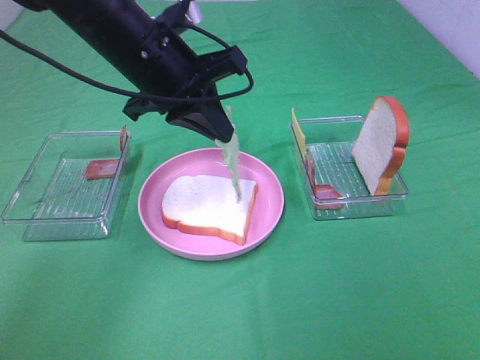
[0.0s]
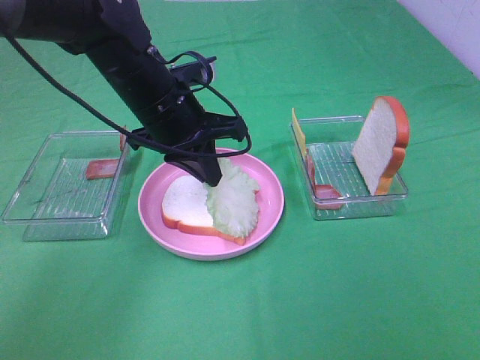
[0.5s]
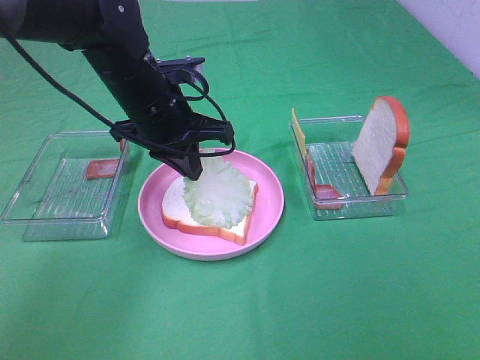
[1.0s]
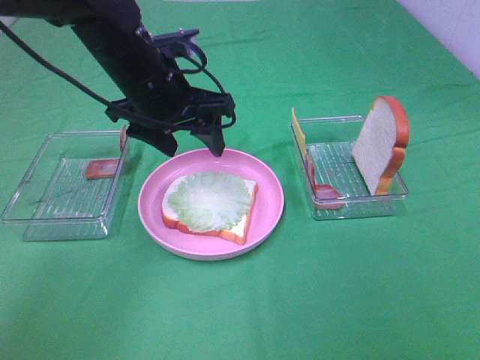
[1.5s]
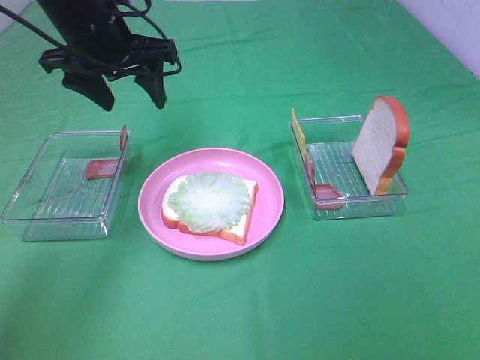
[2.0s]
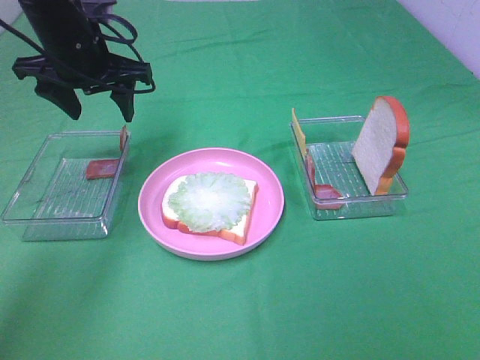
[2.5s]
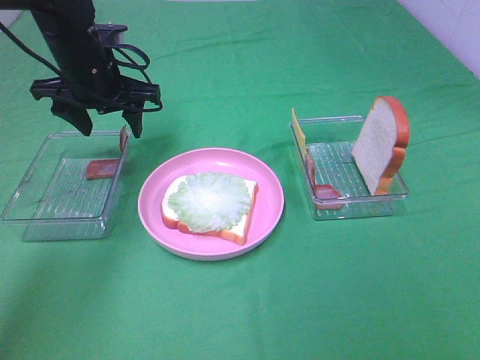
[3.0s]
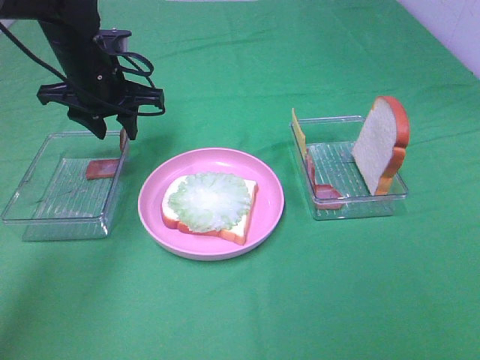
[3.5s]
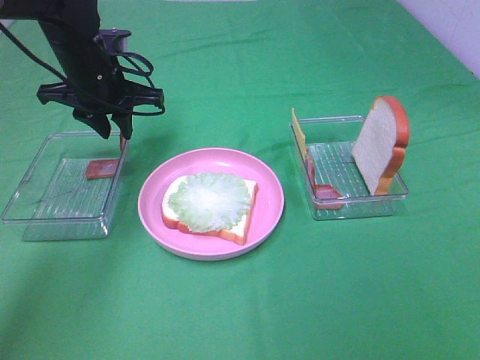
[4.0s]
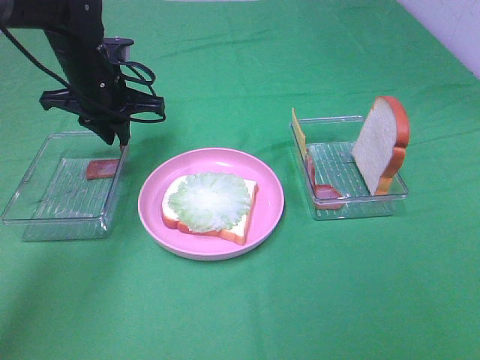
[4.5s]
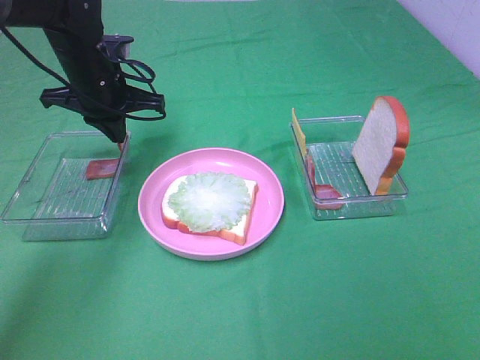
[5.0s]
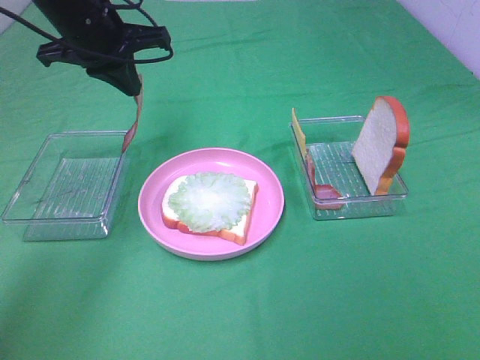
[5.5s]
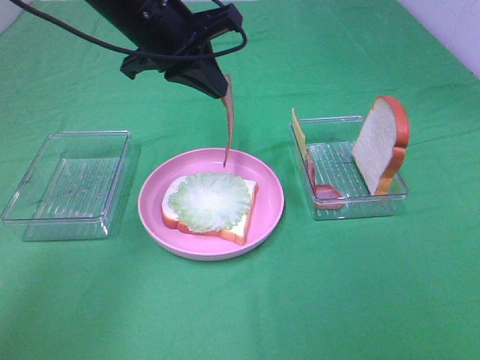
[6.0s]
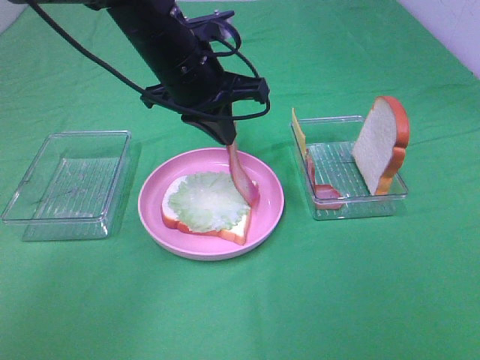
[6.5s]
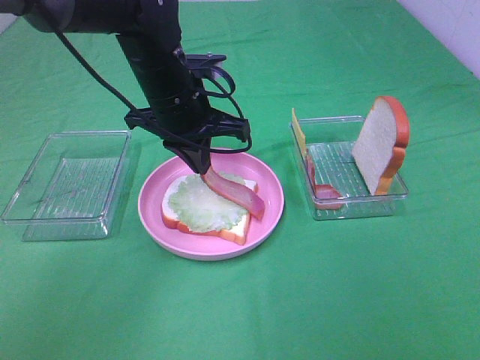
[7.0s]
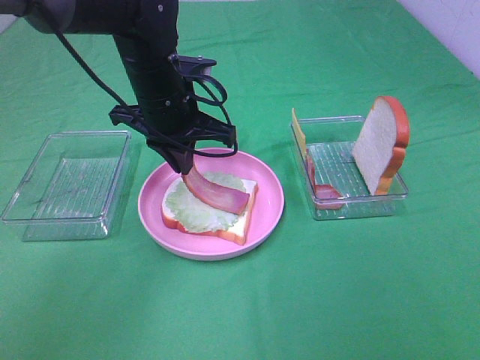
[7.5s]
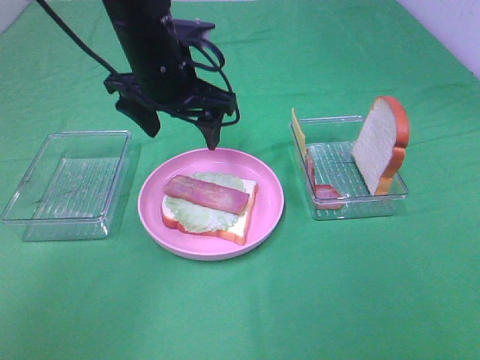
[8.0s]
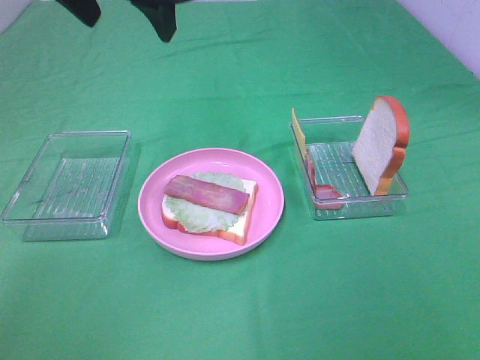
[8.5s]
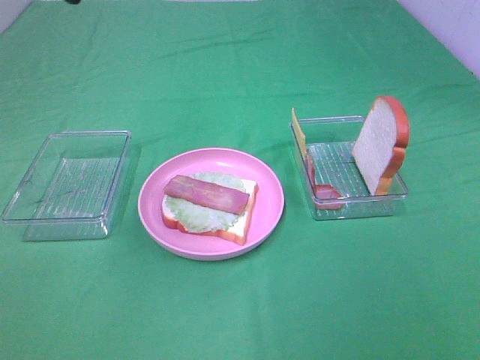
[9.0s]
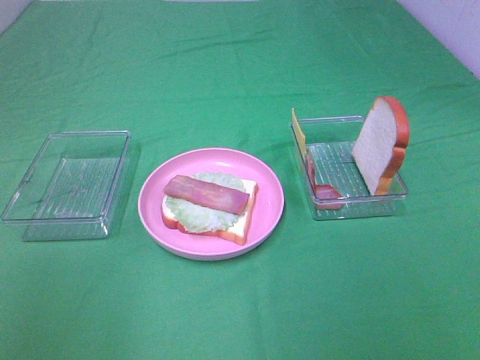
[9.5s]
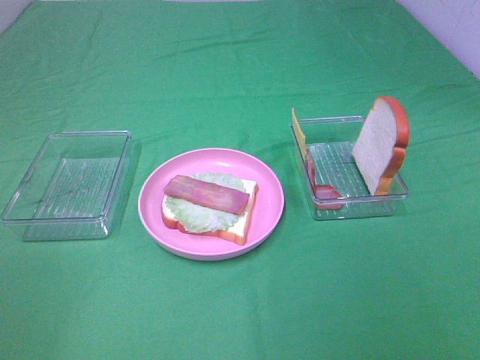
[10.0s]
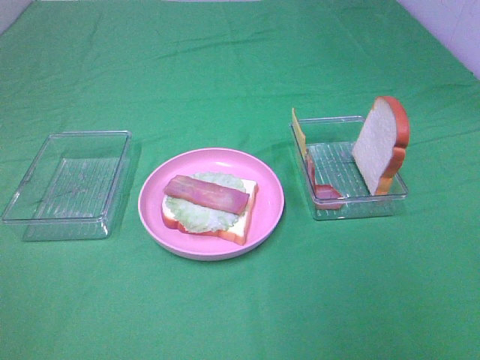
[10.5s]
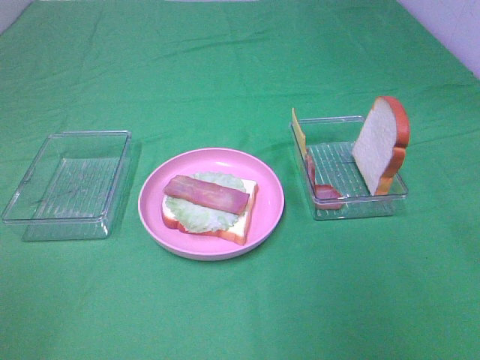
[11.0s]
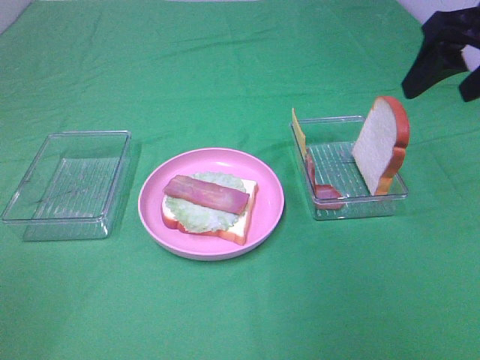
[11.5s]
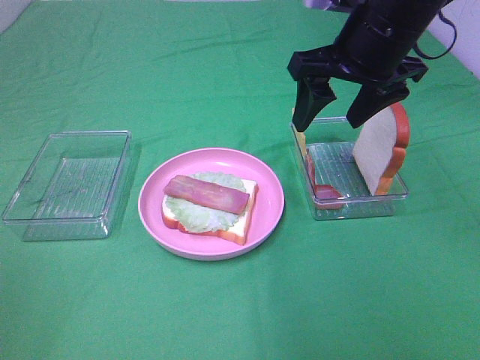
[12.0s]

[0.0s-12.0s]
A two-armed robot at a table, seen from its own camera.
Task of the whole recording: Make sandwiches.
Step, 1.5s to 5.0s: Left hand:grab the bacon.
Step, 5.5s to 7.5s: Left hand:place bacon on lettuce slice.
0.0s to 2.0s: The left gripper is displaced to the left and forward by roughly 10 cm, and opens up.
2.0s to 4.0s: The left gripper shifts some 5 cm downward, and closes up.
4.0s to 6.0s: The left gripper shifts about 10 cm to the right and upward, and closes up.
6.0s to 8.0s: The left gripper opens up.
8.0s to 10.0s: The left gripper moves backward and to the left, roughly 40 cm.
10.0s to 12.0s: The left gripper shifts roughly 5 cm downward. The right gripper is displaced forward and to the left by some 40 cm.

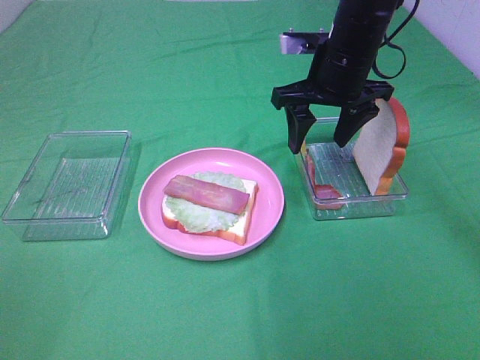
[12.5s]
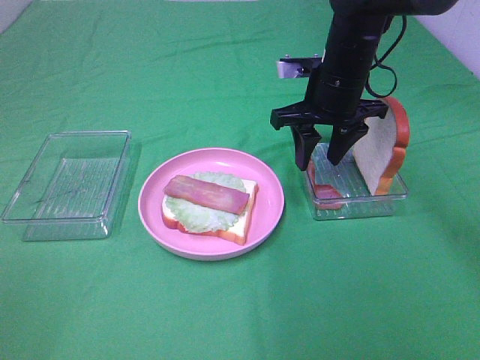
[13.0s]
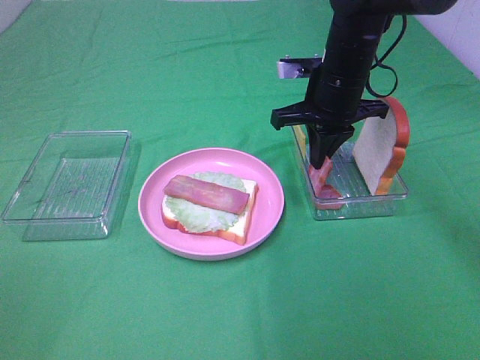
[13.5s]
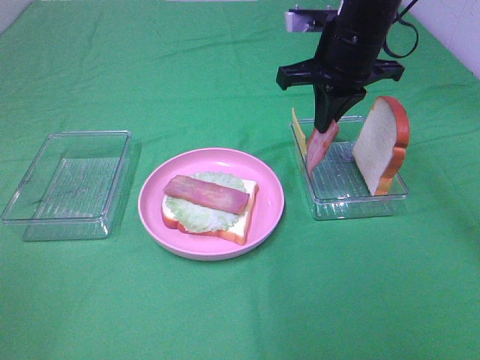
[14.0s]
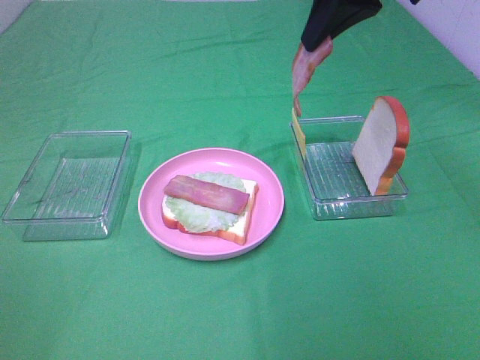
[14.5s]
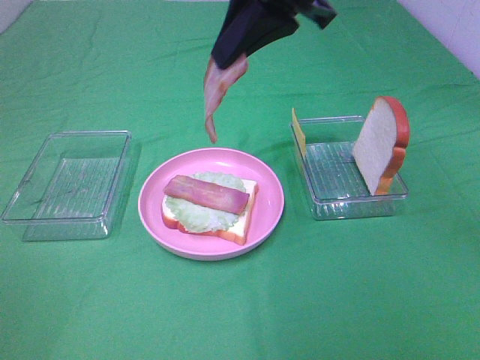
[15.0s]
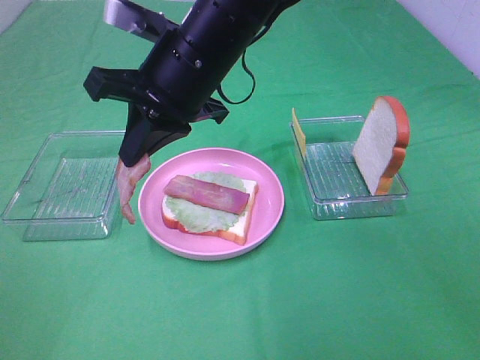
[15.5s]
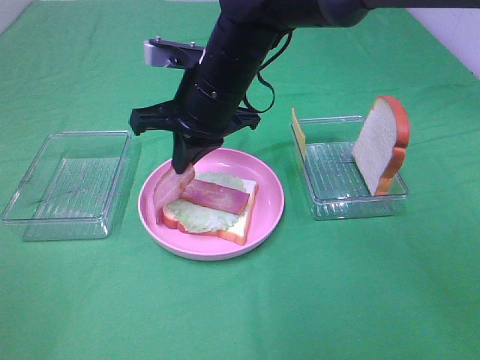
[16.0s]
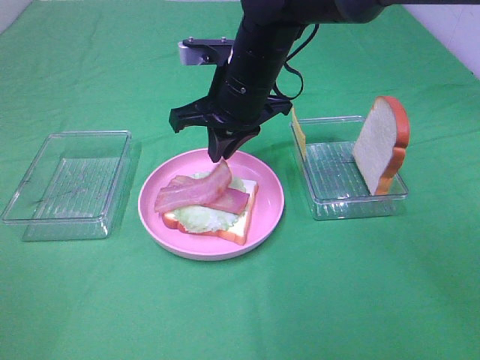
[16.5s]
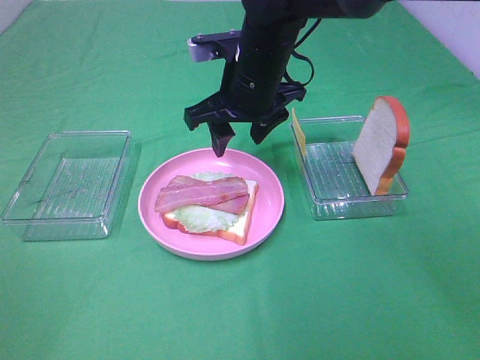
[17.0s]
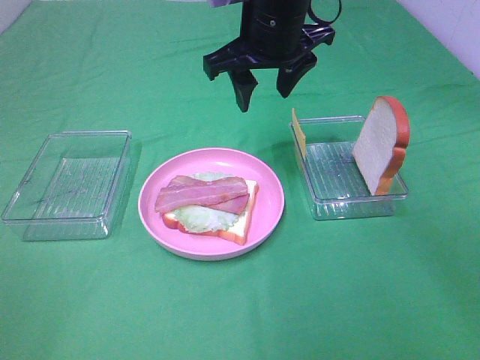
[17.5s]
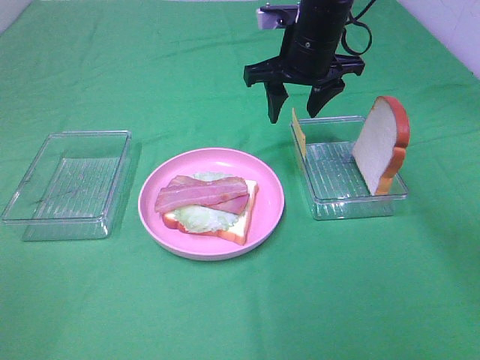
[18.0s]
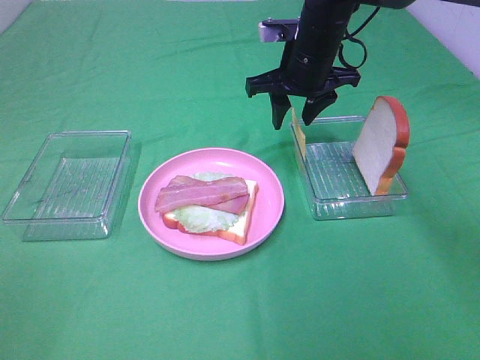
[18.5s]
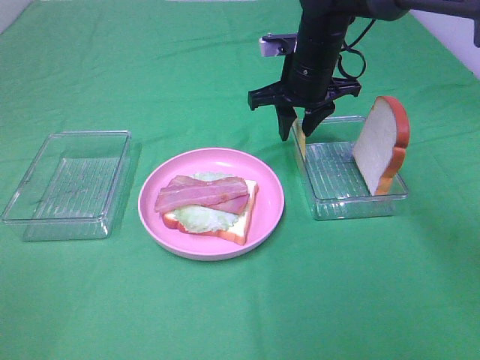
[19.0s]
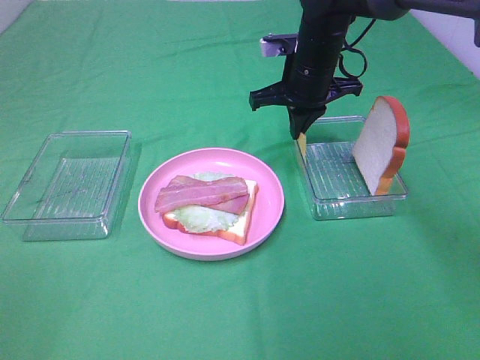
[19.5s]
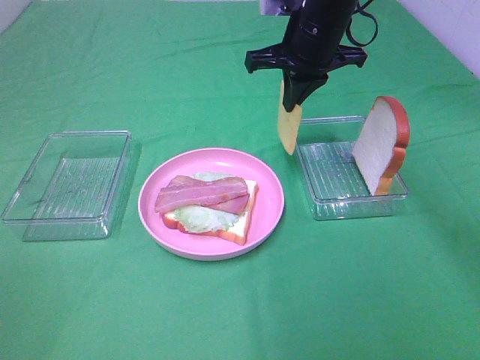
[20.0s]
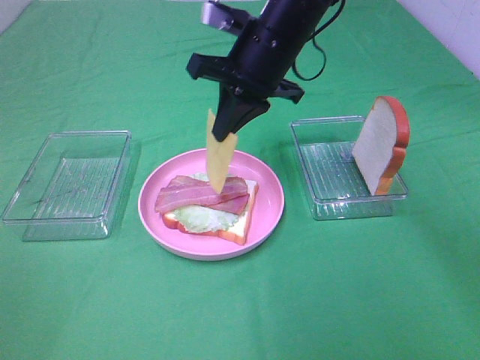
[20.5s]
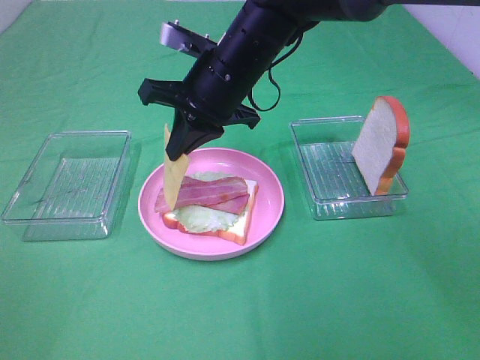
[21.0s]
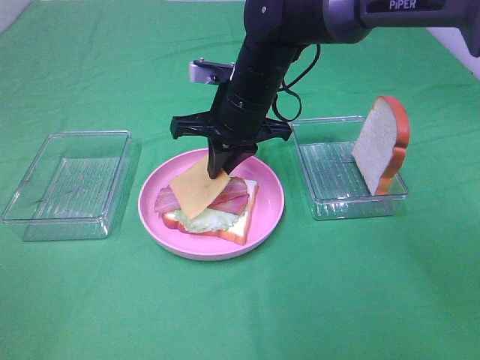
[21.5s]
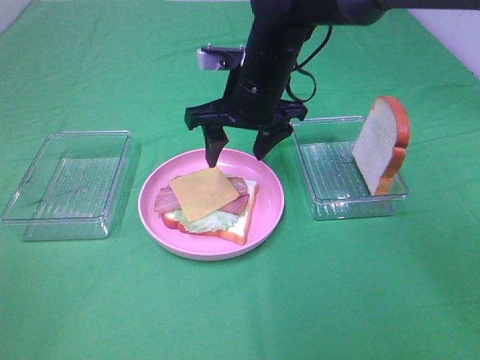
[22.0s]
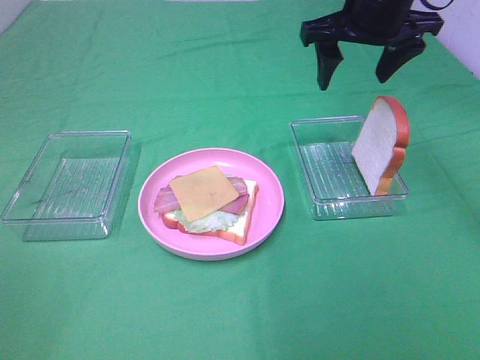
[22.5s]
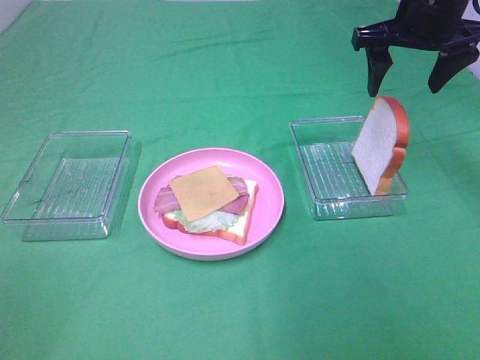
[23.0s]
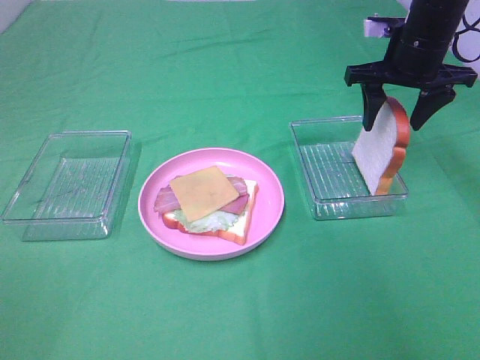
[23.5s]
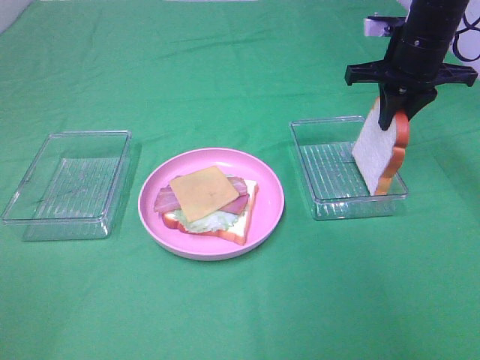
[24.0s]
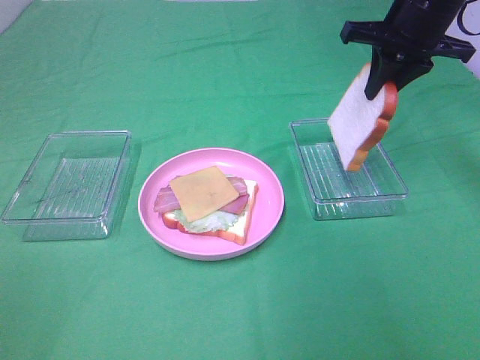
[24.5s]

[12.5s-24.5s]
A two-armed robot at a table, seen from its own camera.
Task of the whole recording: Make sandwiches.
Step, 14.0s to 16.5s: Right hand:place bacon on bacon.
Step, 17.0s to 19.5s: Right hand:grab the cheese slice.
Step, 20.0s to 21.5s: Right hand:place the cheese slice on top of the bacon.
Step, 22.0s to 24.0s: Right hand:grab the bread slice.
12.5s to 14.5s: The right gripper heads upward, covering approximately 15 cm, and closes.
14.5s to 16.5s: The right gripper is displaced downward and to the left by about 20 cm.
16.5s to 18.5s: The right gripper moves to the right and forward, about 10 cm, and opens its fingers.
18.5s to 20.5s: The right gripper goes approximately 10 cm backward and to the left, and closes up.
20.5s to 22.5s: The right gripper travels to the right and upward by approximately 15 cm, and opens.
22.5s to 24.5s: The right gripper heads to the right, covering roughly 5 cm, and closes.

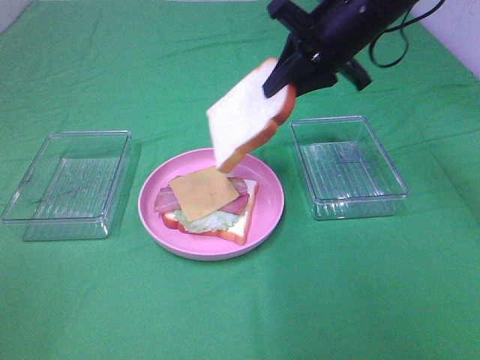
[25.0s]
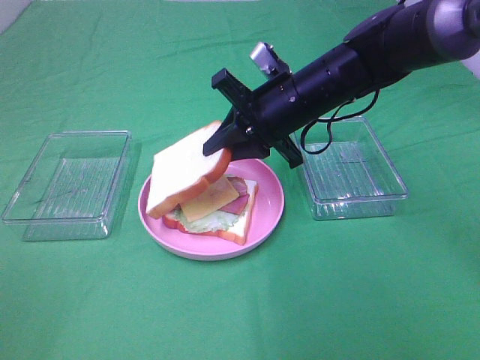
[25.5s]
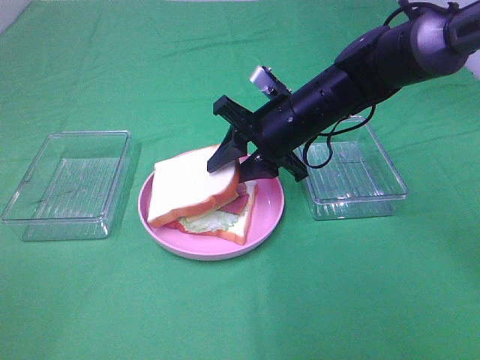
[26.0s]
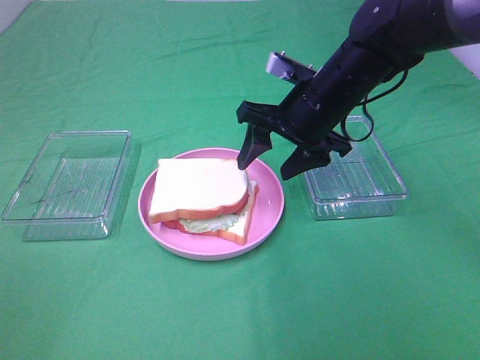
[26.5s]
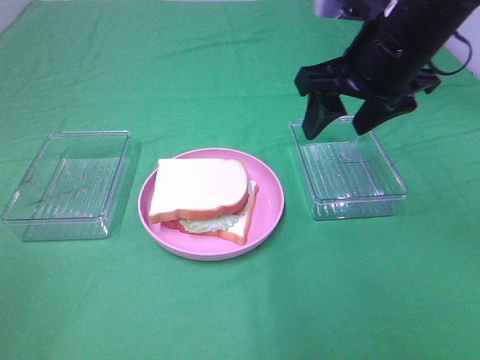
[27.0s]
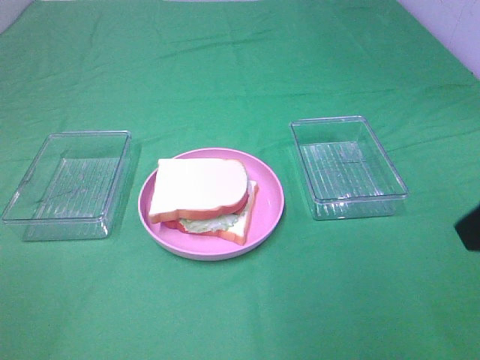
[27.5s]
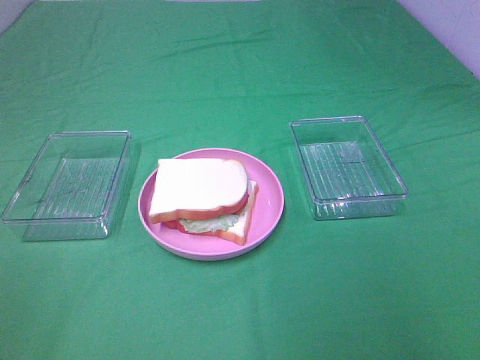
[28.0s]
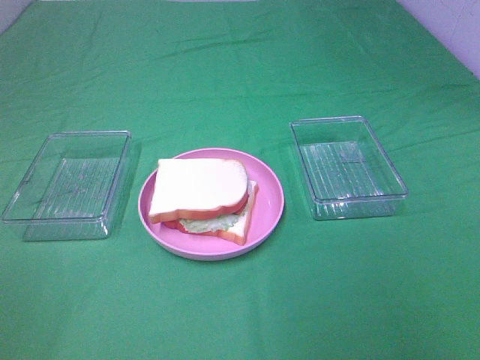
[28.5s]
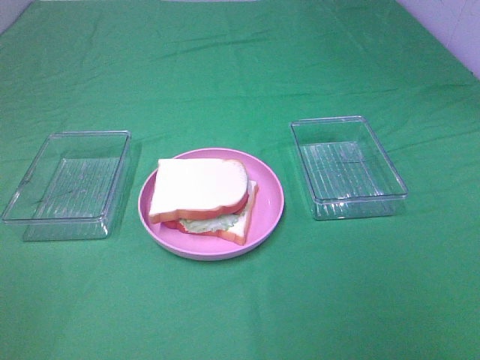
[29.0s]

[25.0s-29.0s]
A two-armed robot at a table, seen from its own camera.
Task of the whole recording: Make sandwiches.
25.0s to 27.0s: The right gripper travels backward by roughly 10 cm, reaches about 10 cm downward, then returns, and opens.
27.0s to 29.0s: The right gripper is displaced backward and to the right by about 30 cm.
